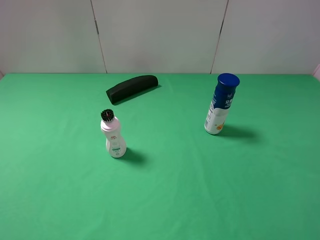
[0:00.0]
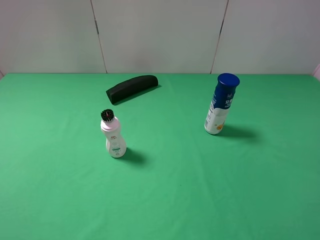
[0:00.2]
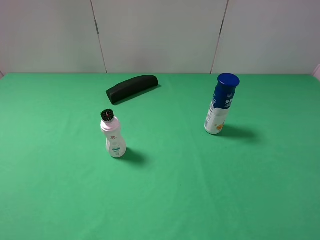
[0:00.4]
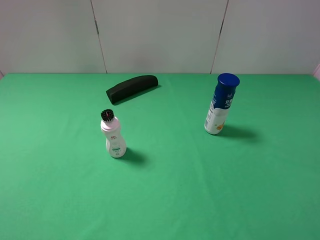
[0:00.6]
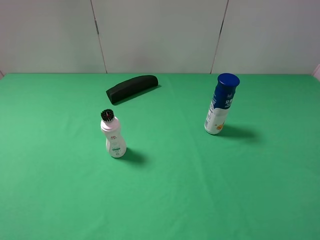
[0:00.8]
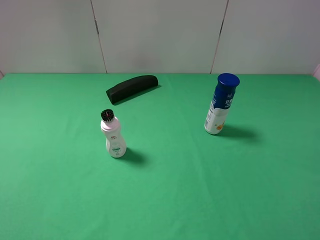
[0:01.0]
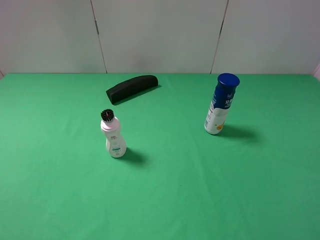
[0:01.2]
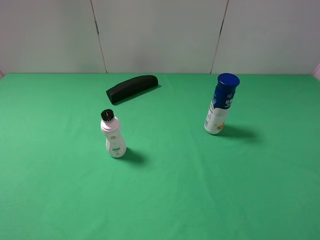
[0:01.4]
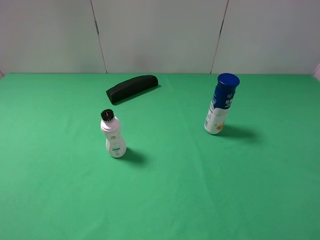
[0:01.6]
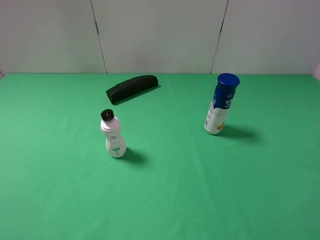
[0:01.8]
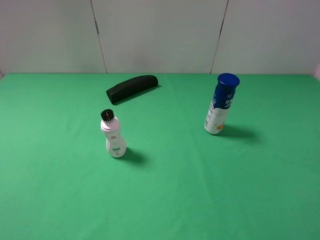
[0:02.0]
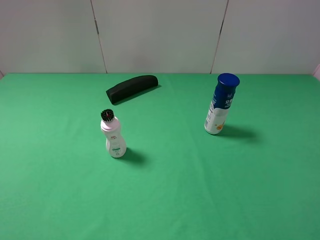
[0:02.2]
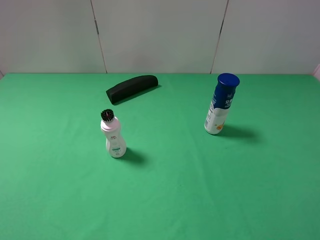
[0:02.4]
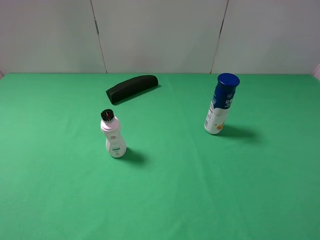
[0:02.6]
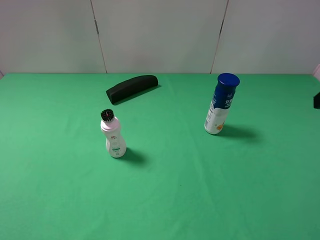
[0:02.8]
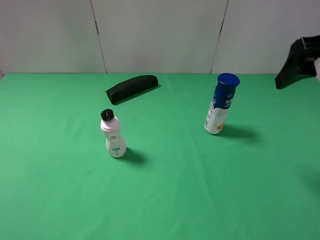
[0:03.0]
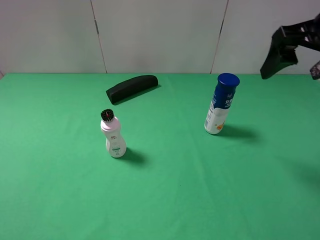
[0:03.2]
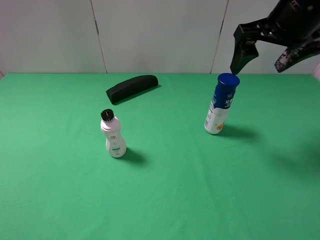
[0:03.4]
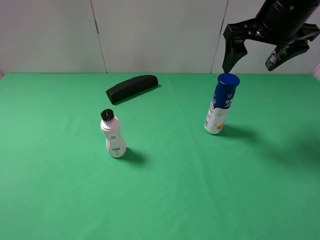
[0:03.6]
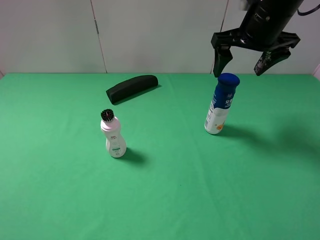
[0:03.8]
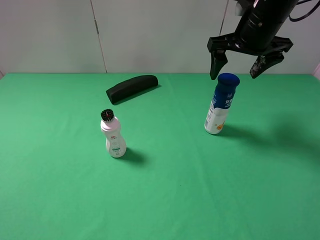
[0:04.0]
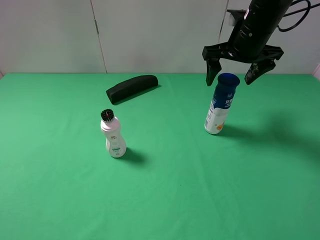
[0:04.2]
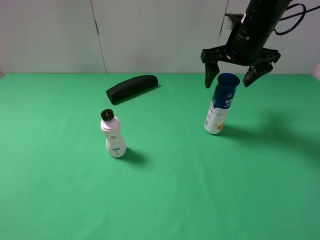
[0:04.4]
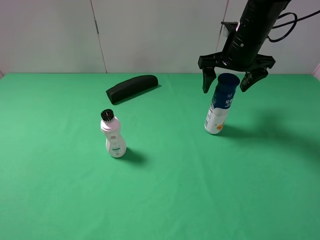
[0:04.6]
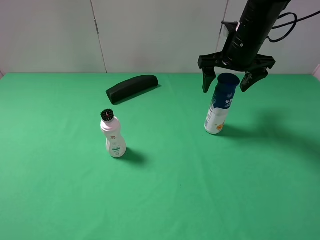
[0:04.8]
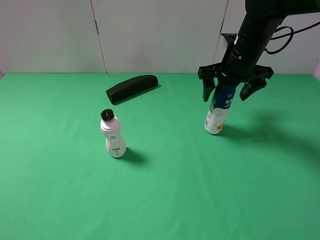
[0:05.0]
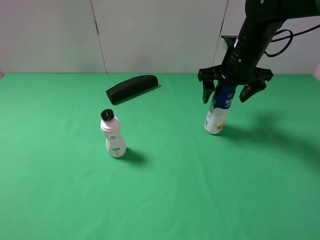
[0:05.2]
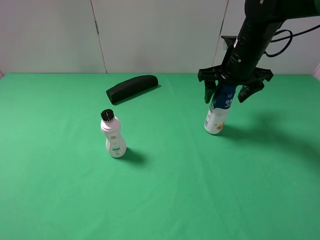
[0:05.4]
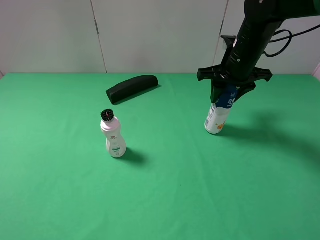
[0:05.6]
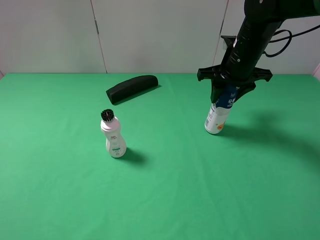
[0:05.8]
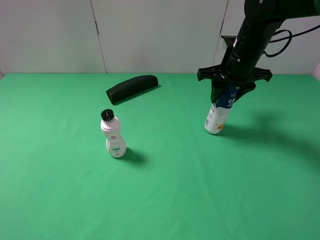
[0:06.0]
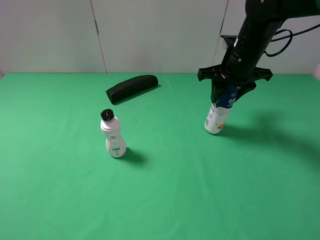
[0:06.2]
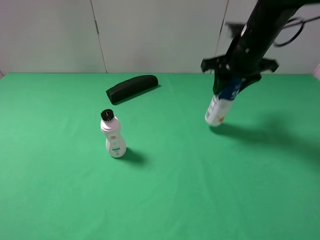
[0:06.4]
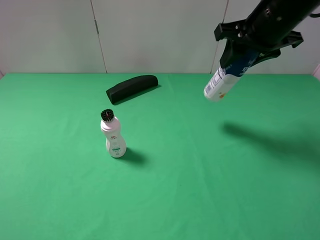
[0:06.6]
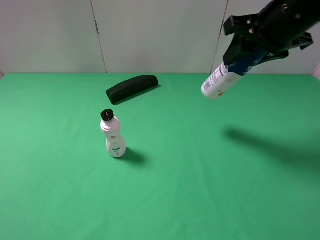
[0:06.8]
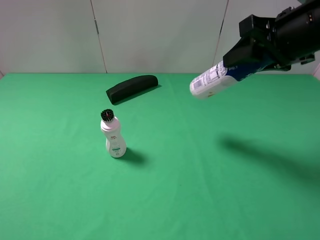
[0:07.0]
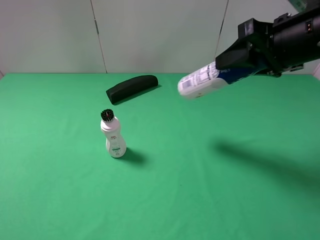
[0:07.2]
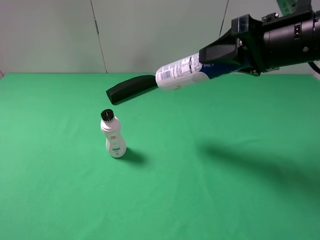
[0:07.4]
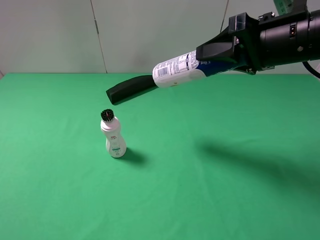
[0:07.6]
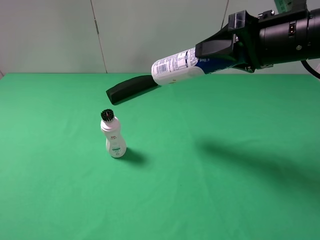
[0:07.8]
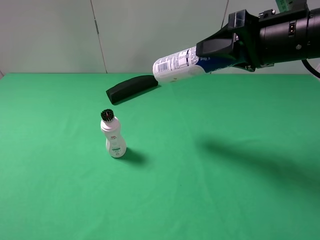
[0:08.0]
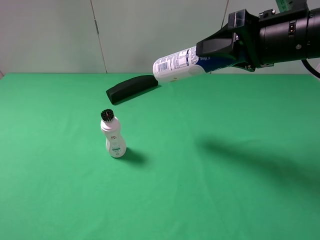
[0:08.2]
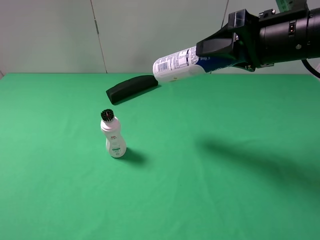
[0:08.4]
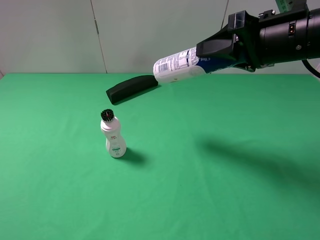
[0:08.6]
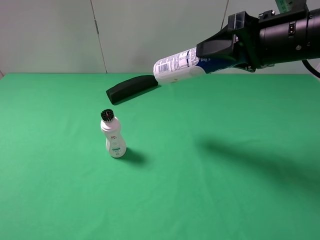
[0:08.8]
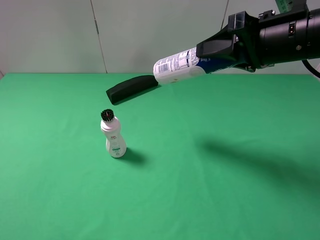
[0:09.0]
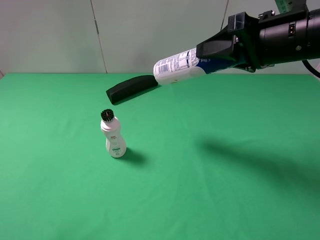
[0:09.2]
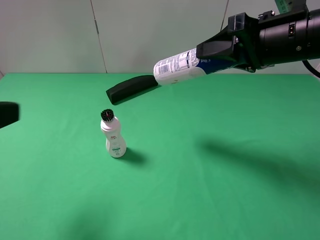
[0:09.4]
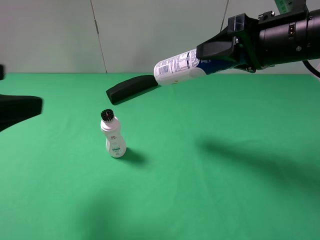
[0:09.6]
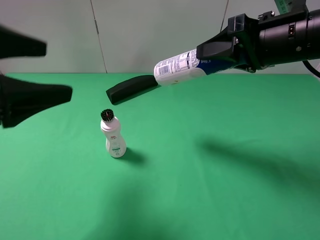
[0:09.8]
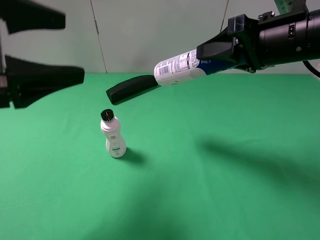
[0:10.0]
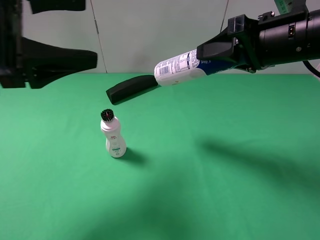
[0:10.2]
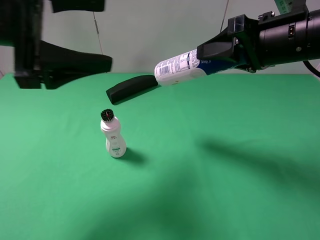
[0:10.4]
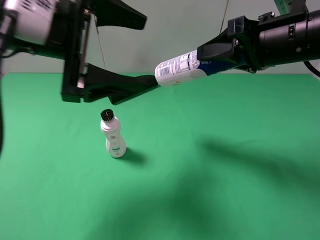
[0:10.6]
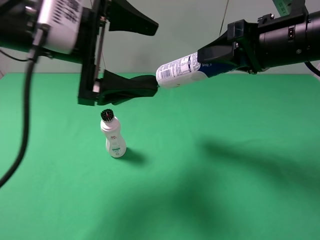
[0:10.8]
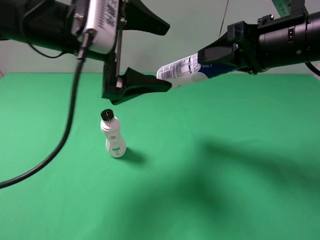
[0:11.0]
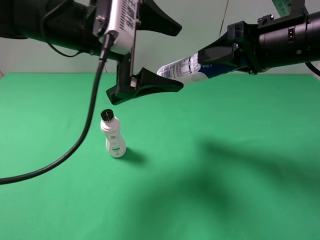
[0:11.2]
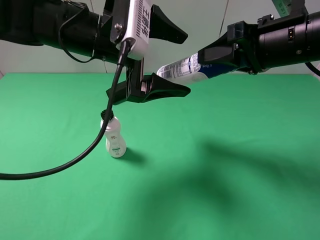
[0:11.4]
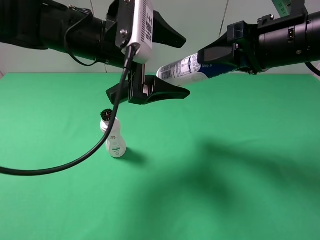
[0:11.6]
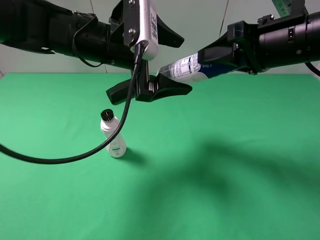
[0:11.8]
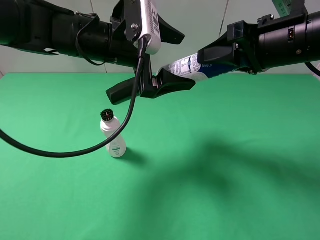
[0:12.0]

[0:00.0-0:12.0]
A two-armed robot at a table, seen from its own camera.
Task of the whole recording: use the right gripper to pick up the item and transfer it from the right gripper to the left gripper.
Step, 0:00.0 to 0:05.6: Use the right gripper to grab the yogurt on the right side of the table.
0:00.0 to 0:01.6: The two grippers keep their place.
0:01.6 to 0:03.0: The right gripper moves forward, some 20 cm.
0:03.0 to 0:04.4: The right gripper shifts some 20 cm forward, to the left and downward.
0:04.4 to 0:06.0: The right gripper closes.
0:06.0 to 0:07.6: The right gripper travels backward and upward by approximately 15 cm.
0:07.6 to 0:09.0: There are only small adjustments of the grippers.
0:09.0 to 0:10.4: The left gripper is displaced forward and to the right by roughly 25 cm.
0:10.4 to 0:12.0: The left gripper travels to the right, forward and downward by roughly 15 cm.

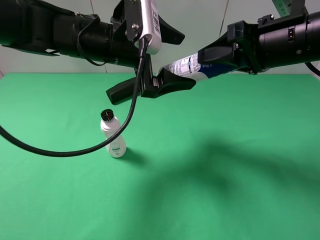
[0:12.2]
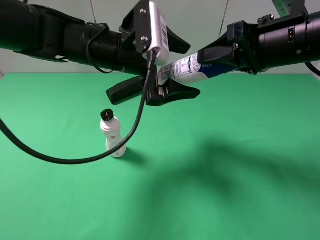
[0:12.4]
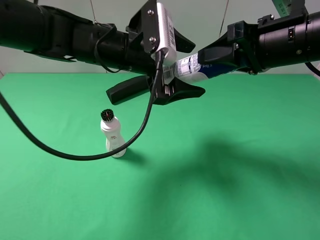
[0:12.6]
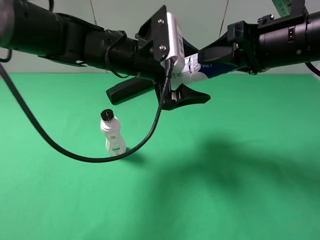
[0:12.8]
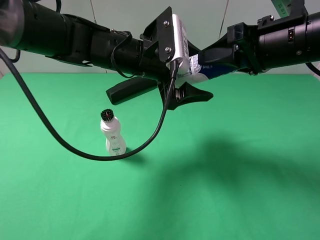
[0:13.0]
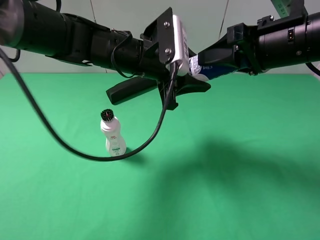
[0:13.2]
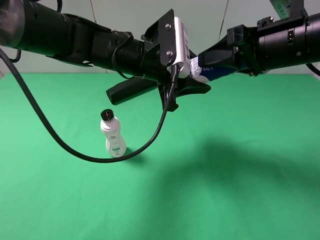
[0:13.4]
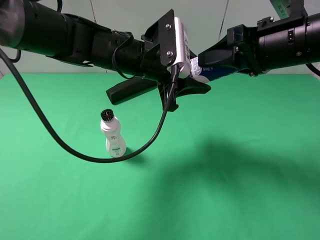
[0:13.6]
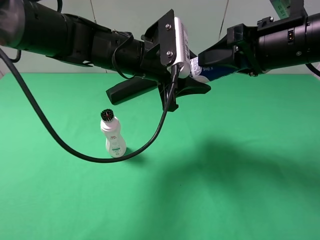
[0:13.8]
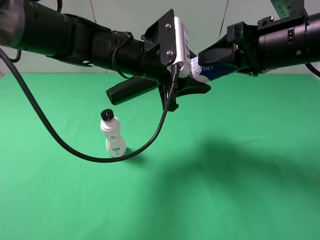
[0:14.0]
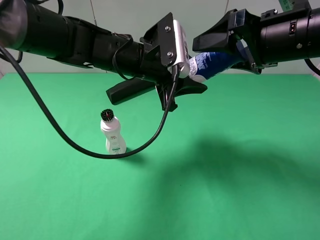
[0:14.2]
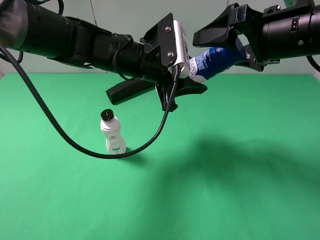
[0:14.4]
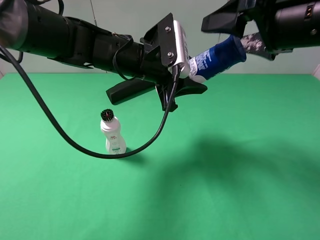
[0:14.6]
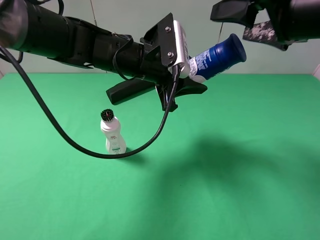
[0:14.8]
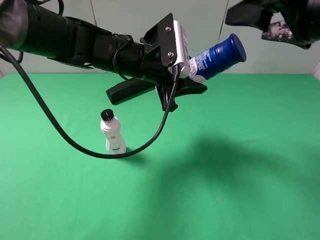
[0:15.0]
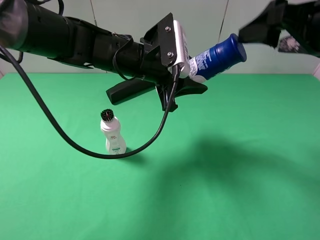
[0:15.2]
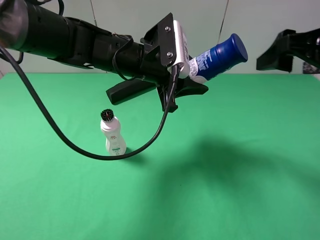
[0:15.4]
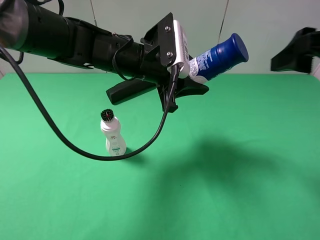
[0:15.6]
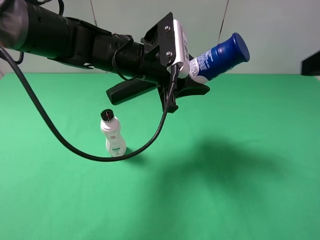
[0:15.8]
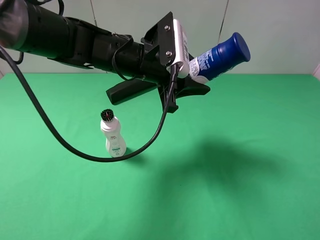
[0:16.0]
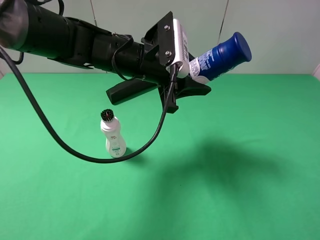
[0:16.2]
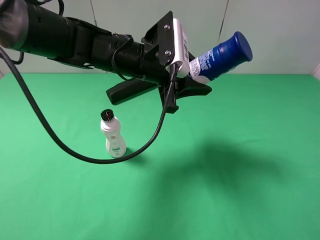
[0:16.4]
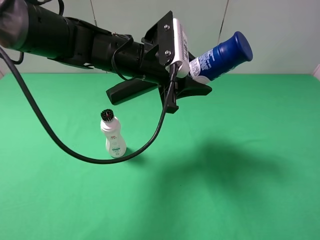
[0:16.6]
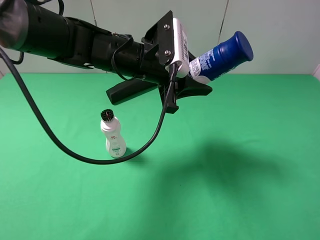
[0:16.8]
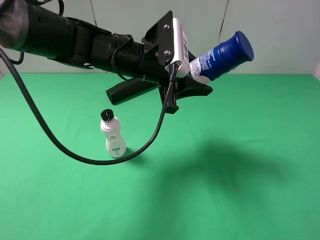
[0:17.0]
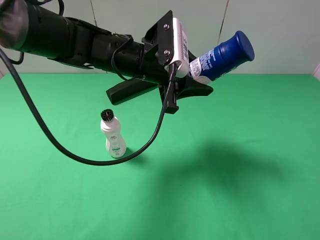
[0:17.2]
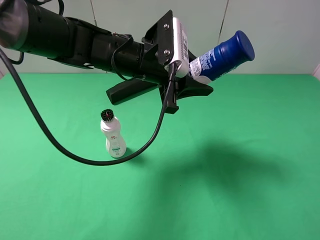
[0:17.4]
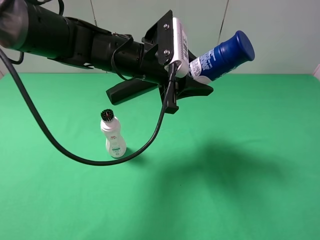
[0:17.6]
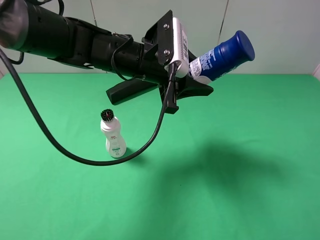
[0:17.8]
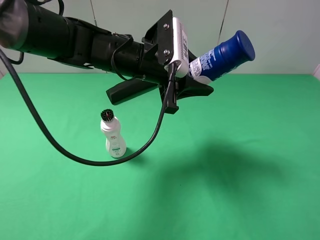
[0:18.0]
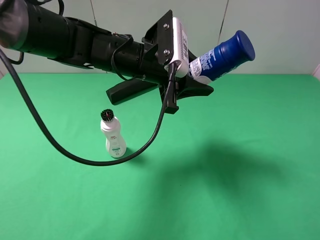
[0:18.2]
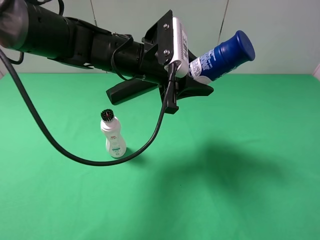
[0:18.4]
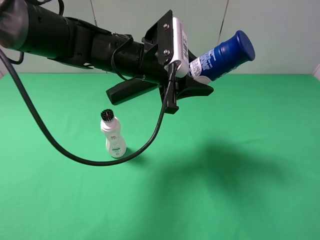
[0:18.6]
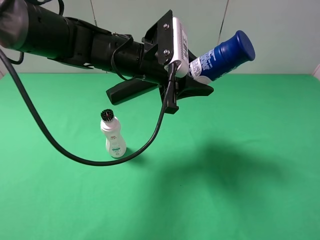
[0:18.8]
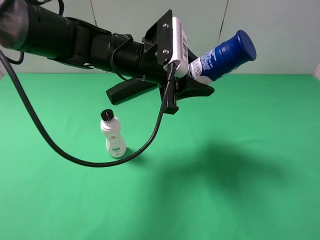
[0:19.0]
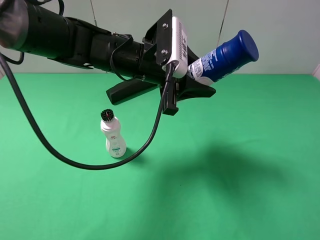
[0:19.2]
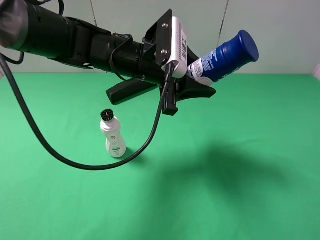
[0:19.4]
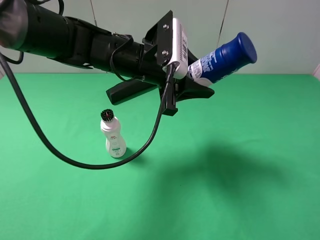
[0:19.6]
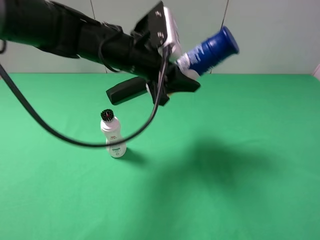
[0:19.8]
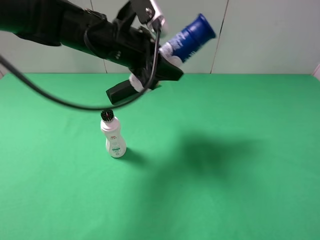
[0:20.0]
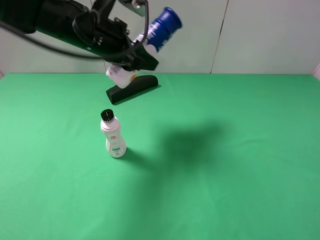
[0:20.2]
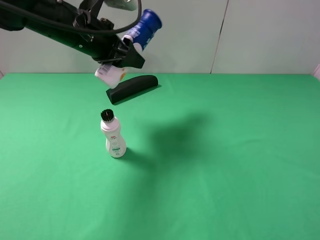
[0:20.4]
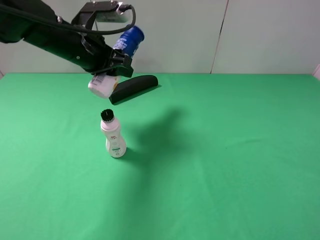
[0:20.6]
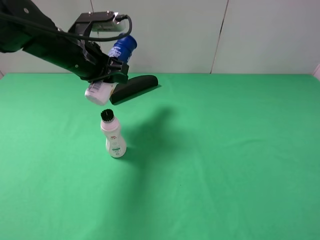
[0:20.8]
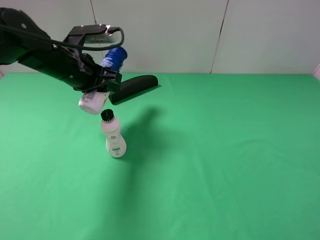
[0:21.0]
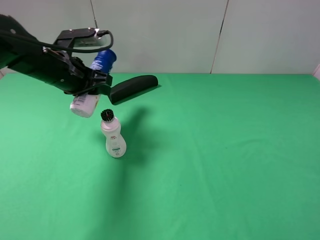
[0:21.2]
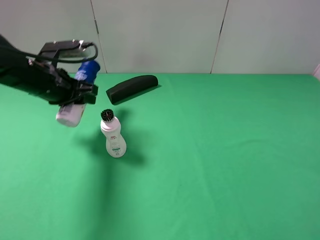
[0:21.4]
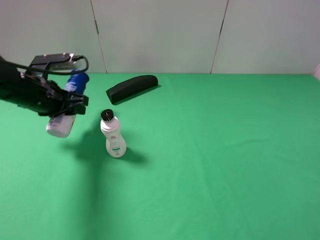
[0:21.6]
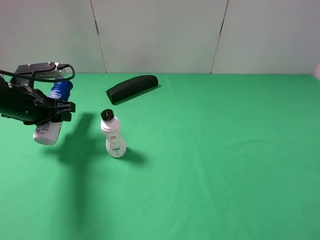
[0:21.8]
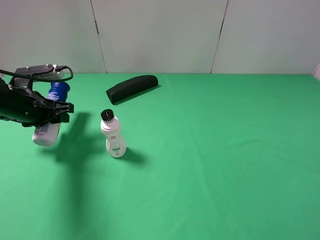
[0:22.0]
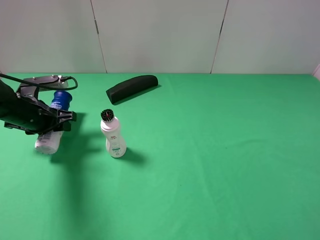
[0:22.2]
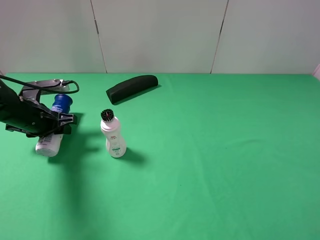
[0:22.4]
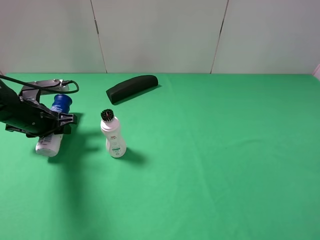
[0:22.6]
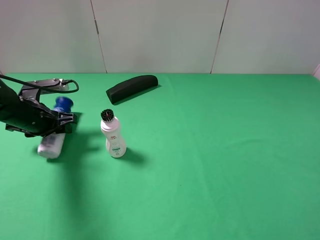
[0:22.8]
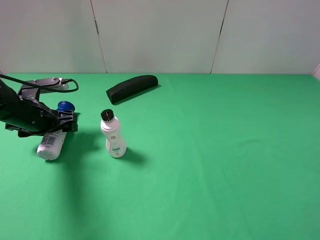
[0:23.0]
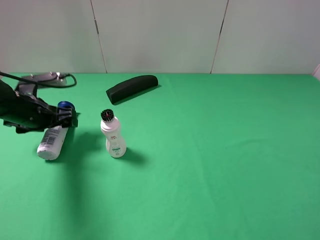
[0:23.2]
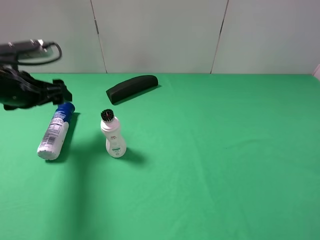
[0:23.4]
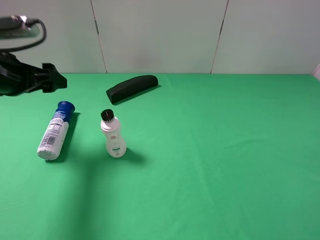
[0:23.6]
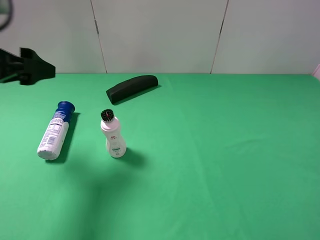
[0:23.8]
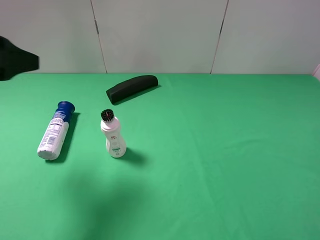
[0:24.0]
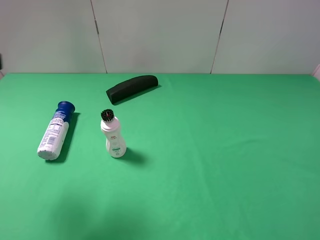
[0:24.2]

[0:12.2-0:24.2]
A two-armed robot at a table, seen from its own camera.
Task of the whole recording: use the right gripper to pick up the item and transfer it from the right gripper to the left gripper.
Step, 0:12.2 to 0:14.8: Pass the yogurt to the left gripper.
Step, 0:15.0 to 0:23.2: The left gripper places yogurt on the left side of the table.
0:12.2 to 0:13.8: The left gripper closes up.
0:13.8 to 0:15.2: The right gripper ends up roughly 5 cm from where it was, and opens its fingers.
0:15.2 to 0:16.6: The right gripper moves backward, approximately 20 cm.
0:16.6 to 0:19.8: The grippers move only a little.
0:19.8 to 0:21.2: The left gripper is displaced to the left by roughly 15 cm.
0:21.2 to 0:22.6: The left gripper is displaced downward and to the left by some 10 cm.
0:22.6 to 0:24.2: The left gripper goes roughly 30 cm upward and backward, and opens up.
